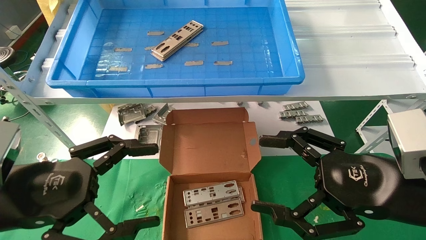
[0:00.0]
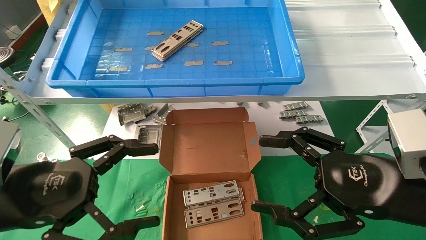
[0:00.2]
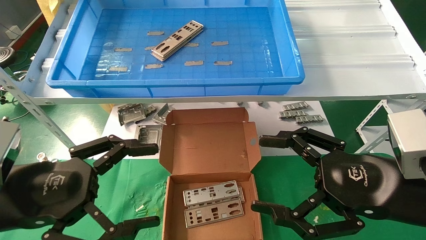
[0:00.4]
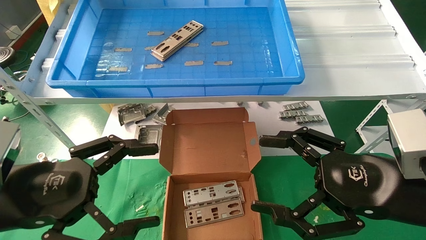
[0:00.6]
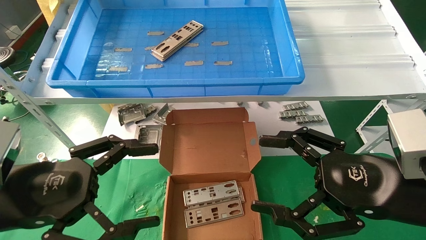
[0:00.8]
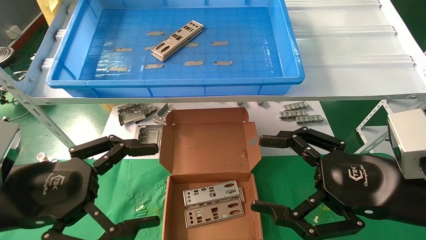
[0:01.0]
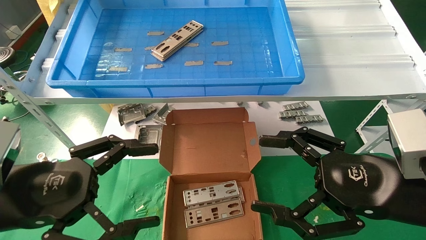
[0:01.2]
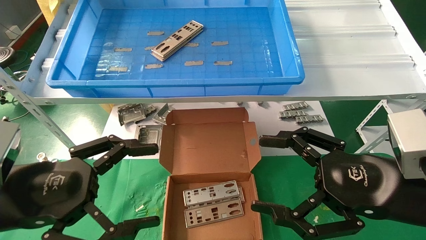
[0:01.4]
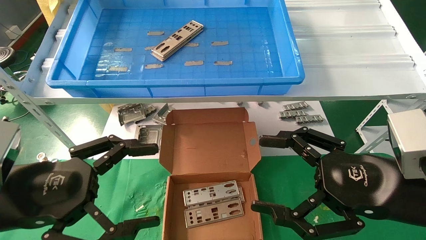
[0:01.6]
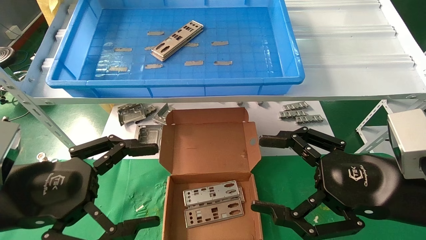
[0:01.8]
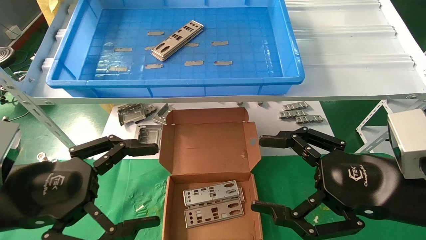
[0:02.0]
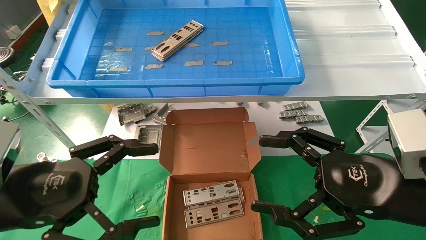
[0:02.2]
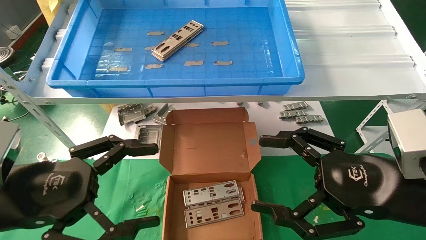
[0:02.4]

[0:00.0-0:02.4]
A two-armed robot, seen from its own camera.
Task of the whole recording: pick up the parts on the tray and put them in the cardboard box.
0:00.0 to 0:02.4: Both grippers stay put.
